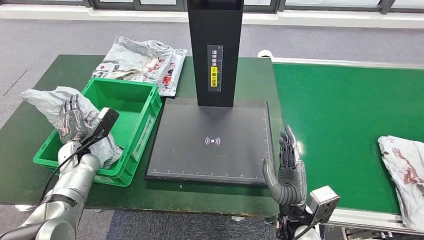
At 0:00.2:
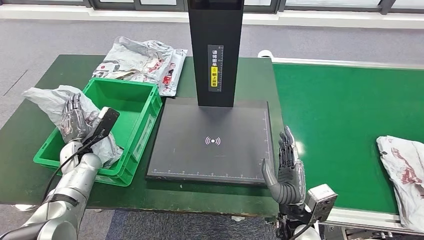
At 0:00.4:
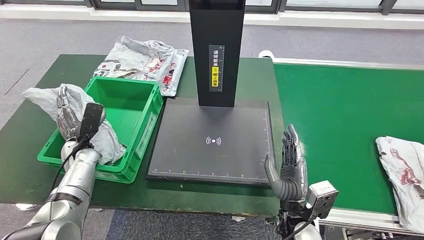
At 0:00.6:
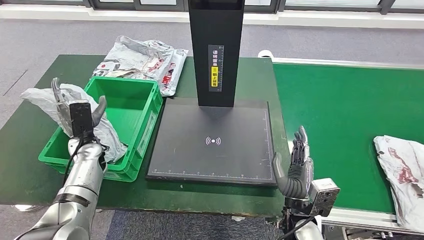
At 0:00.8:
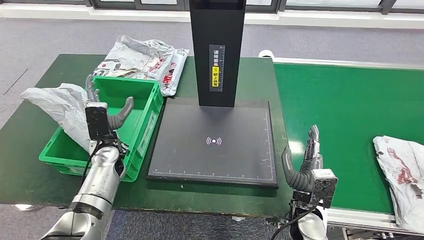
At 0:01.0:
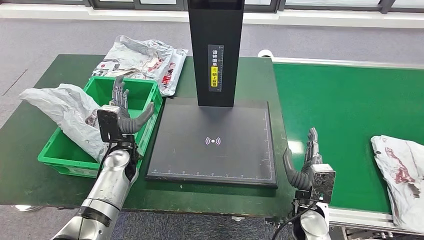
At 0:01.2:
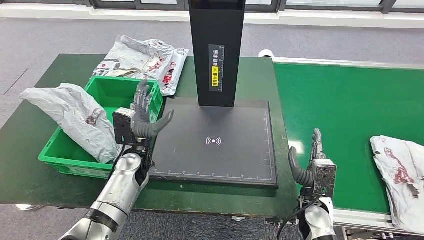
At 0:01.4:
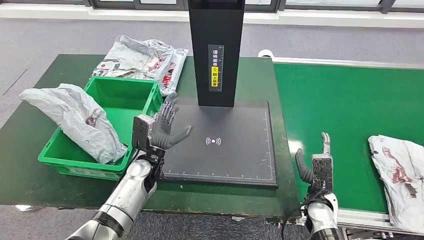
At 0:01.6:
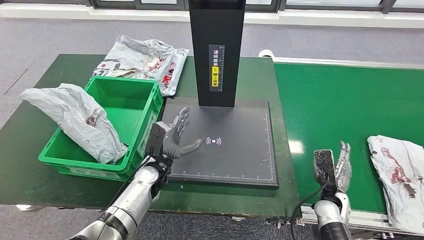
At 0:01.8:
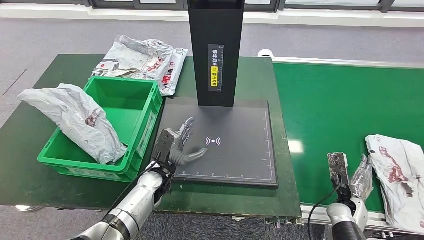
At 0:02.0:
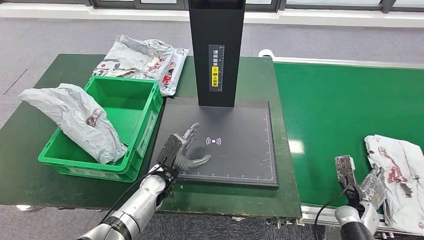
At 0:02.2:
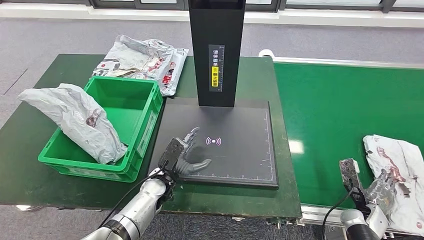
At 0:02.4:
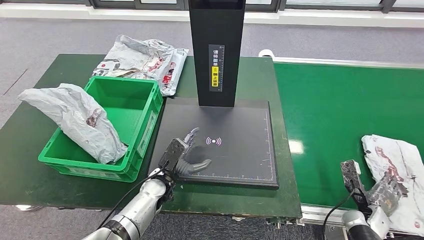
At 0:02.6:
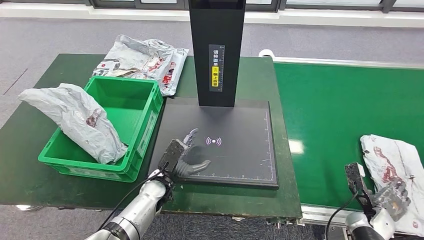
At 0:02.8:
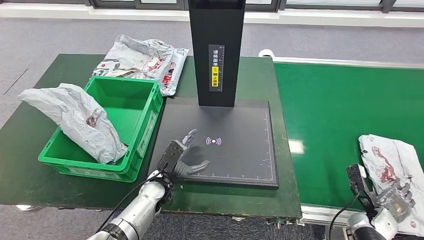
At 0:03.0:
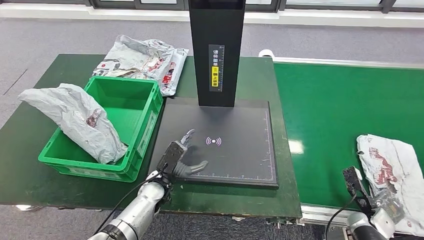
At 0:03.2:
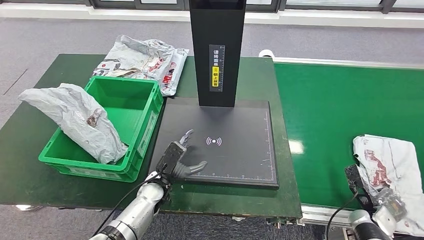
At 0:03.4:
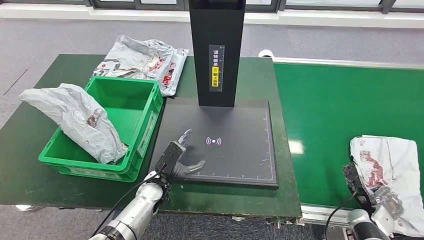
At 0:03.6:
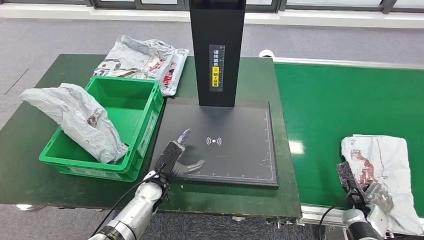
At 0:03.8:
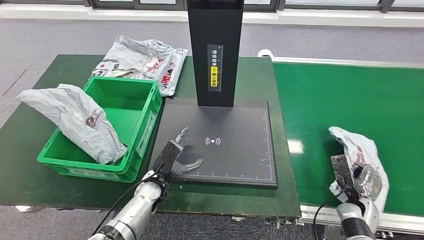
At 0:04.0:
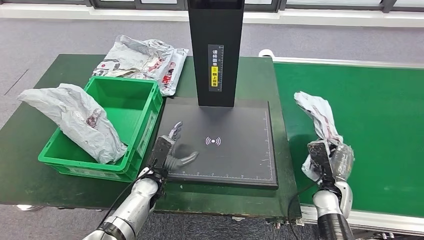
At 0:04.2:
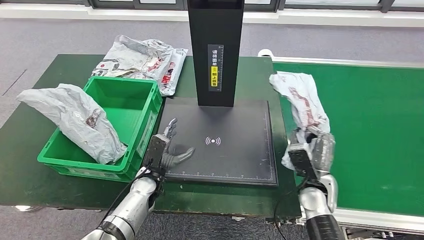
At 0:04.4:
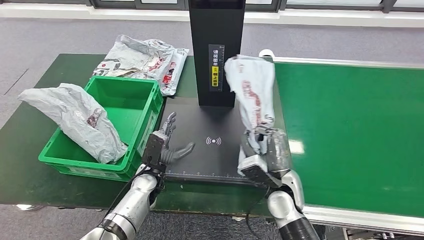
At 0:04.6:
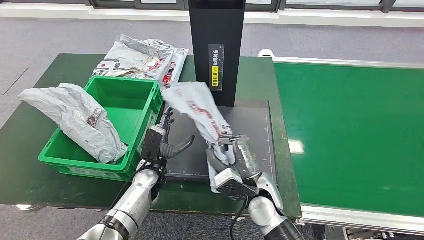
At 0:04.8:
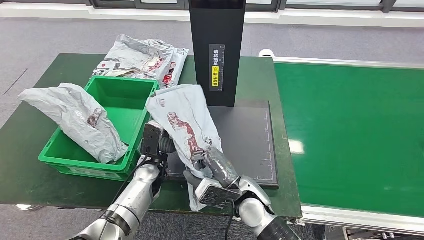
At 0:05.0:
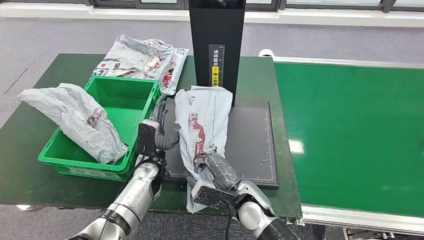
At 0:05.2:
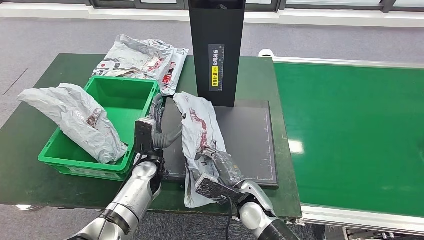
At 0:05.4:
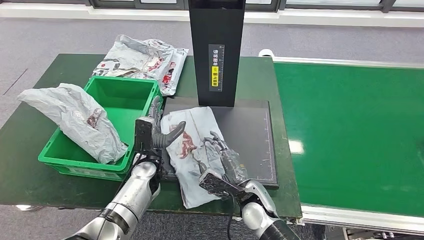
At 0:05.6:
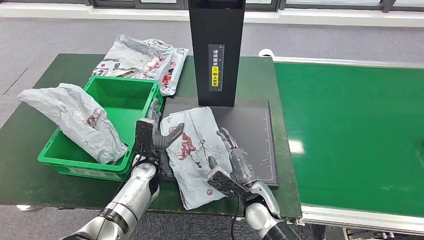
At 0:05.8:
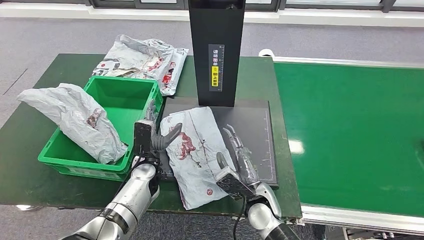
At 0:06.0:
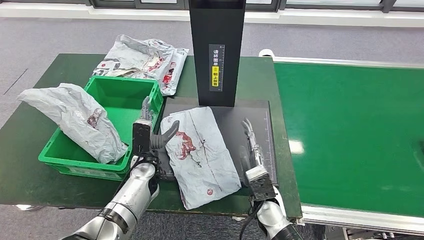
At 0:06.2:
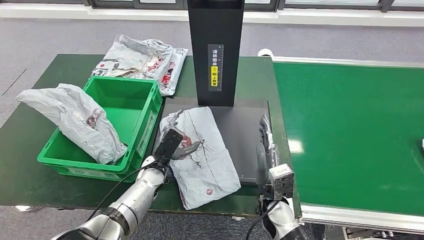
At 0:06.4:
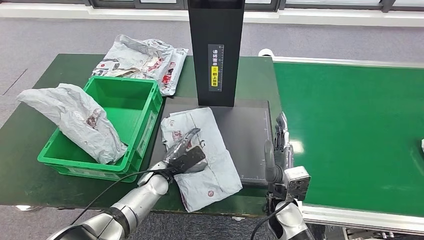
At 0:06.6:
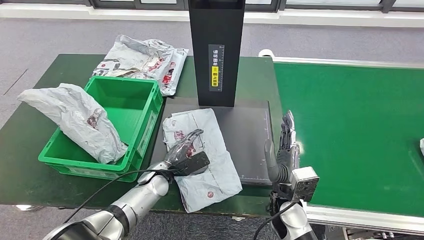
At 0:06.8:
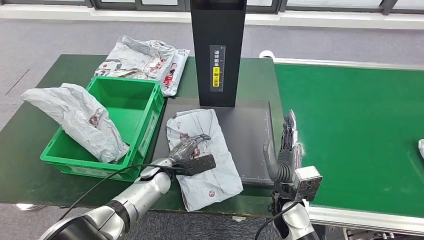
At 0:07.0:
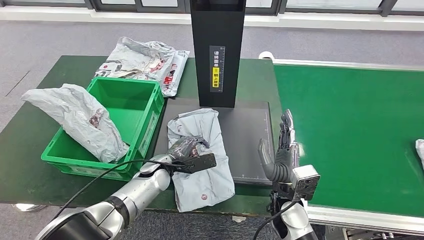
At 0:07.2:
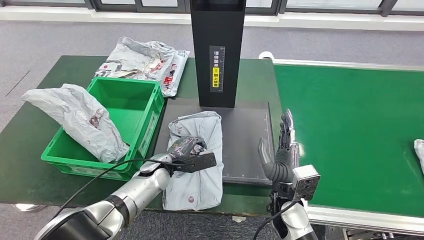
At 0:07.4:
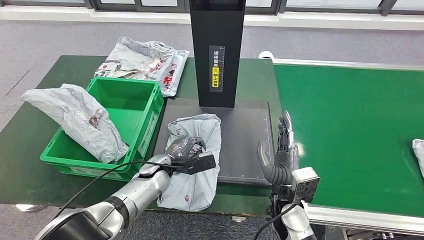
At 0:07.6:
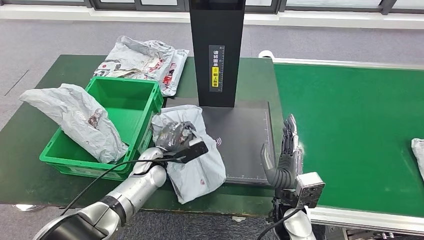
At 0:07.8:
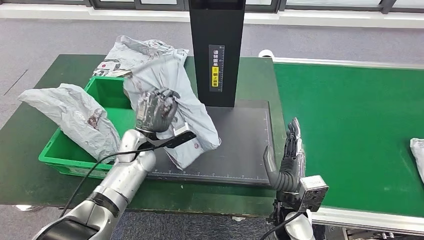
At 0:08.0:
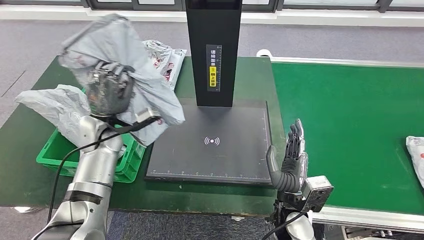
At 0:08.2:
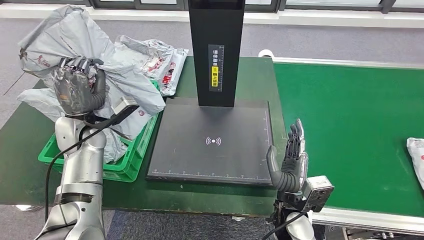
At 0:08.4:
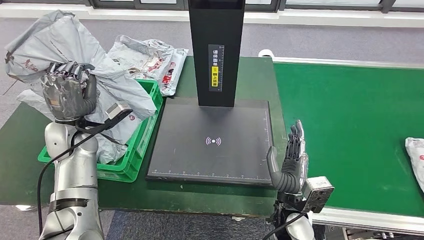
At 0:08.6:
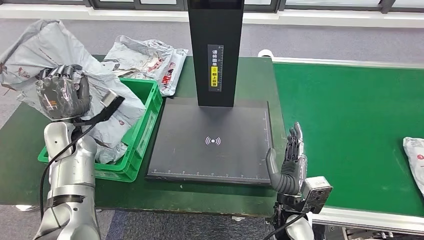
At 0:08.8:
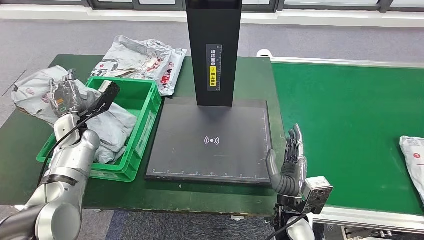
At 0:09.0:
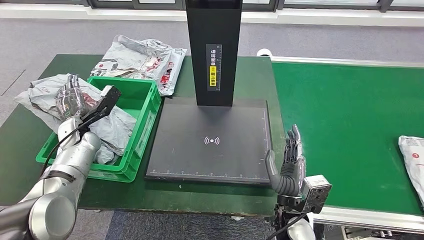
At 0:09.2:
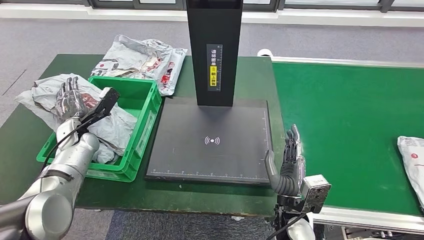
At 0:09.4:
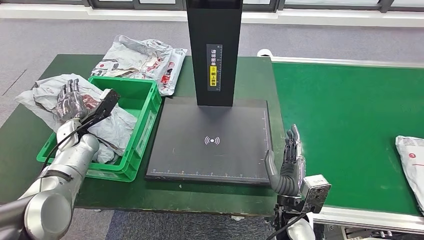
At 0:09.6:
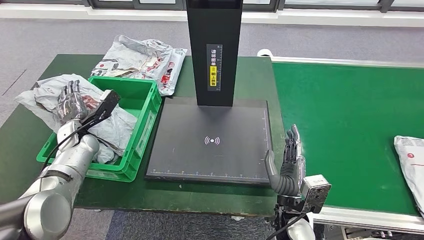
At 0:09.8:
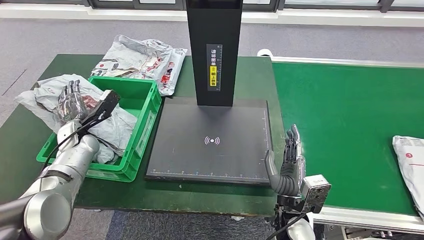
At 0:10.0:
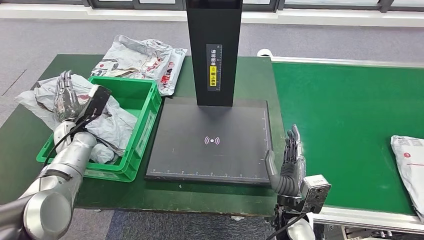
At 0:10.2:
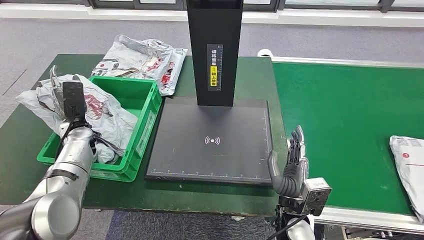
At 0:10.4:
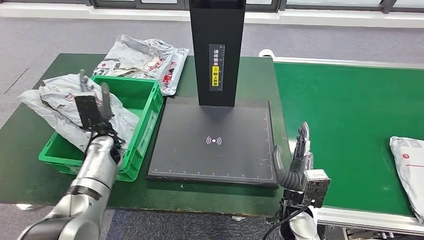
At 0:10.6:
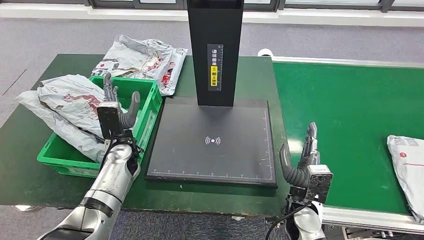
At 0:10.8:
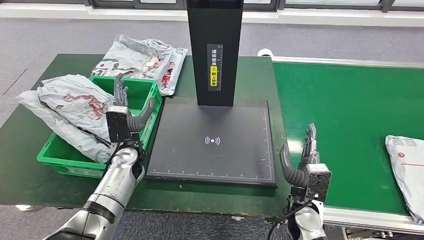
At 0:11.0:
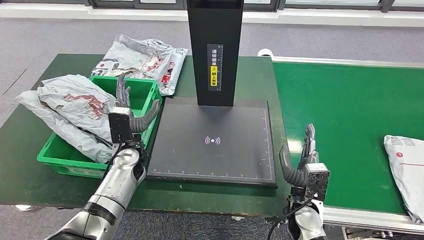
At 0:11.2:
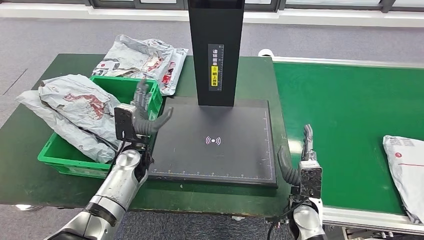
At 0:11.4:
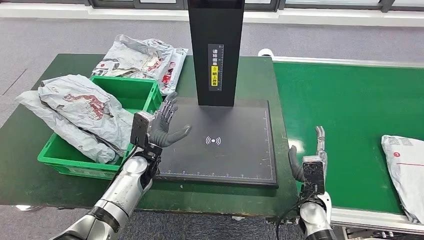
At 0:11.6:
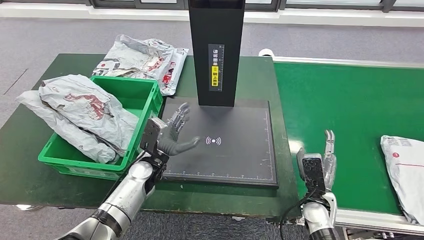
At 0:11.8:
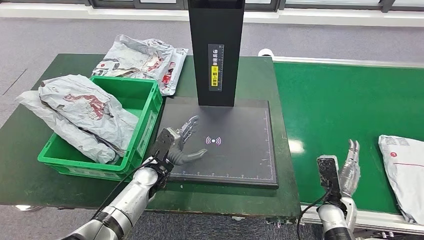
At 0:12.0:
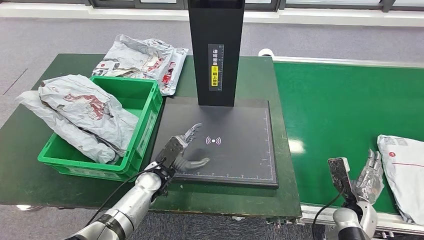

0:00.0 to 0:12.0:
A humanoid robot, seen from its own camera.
Step, 0:00.0 to 0:02.2: Put the parcel inside the courier box.
Step, 0:02.4 to 0:05.0: Pick up the parcel from the conveyor belt.
Step, 0:05.2 to 0:06.8: Place the parcel onto the inbound machine.
Step, 0:07.0 to 0:08.4: Pick up the parcel from the inbound machine.
Step, 0:08.8 to 0:09.8: Place the parcel into the delivery box.
0:01.6 to 0:03.0: The left hand moves approximately 5 cm. The right hand travels to the right by about 10 cm.
0:04.4 to 0:06.0: The right hand changes place by approximately 5 cm.

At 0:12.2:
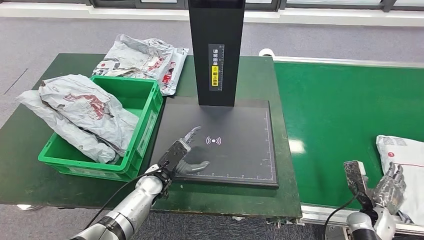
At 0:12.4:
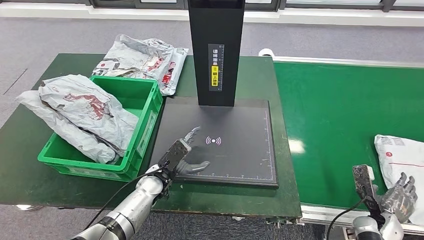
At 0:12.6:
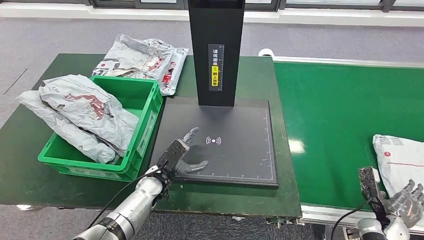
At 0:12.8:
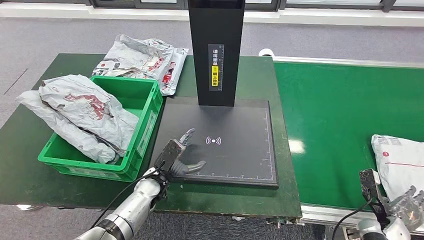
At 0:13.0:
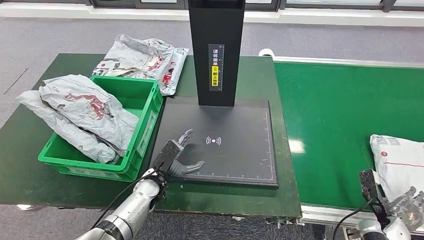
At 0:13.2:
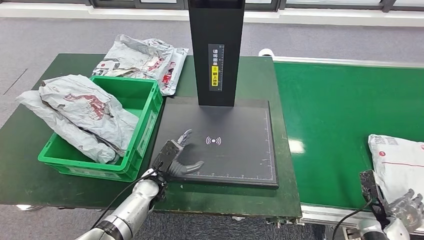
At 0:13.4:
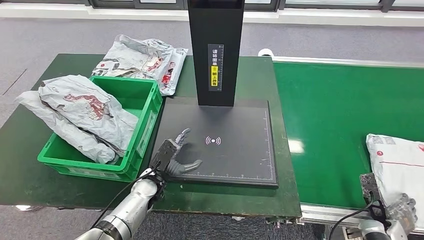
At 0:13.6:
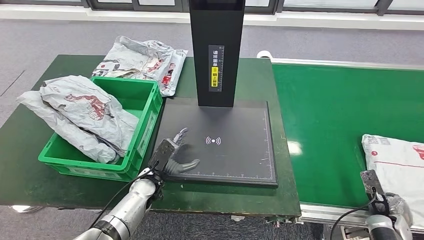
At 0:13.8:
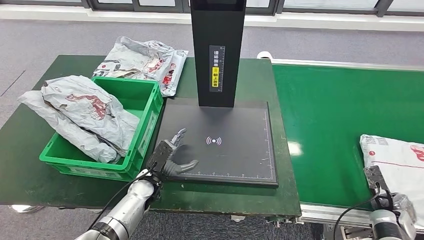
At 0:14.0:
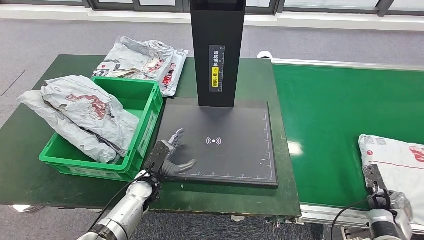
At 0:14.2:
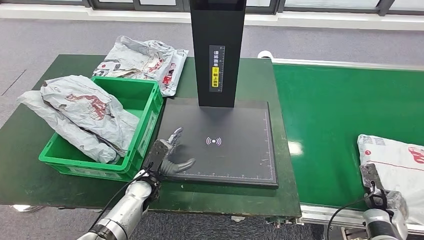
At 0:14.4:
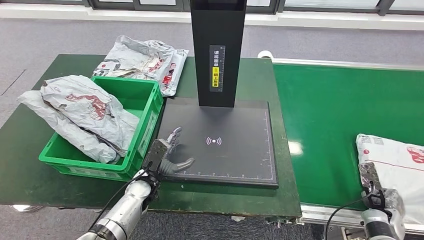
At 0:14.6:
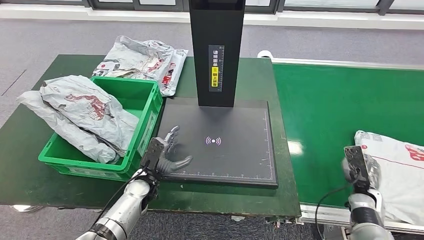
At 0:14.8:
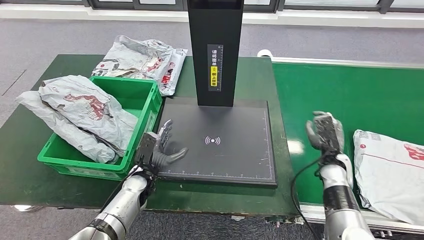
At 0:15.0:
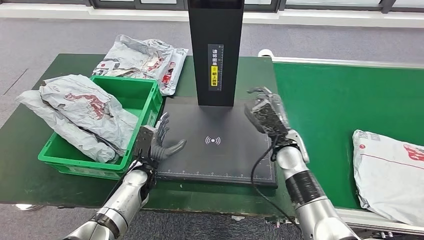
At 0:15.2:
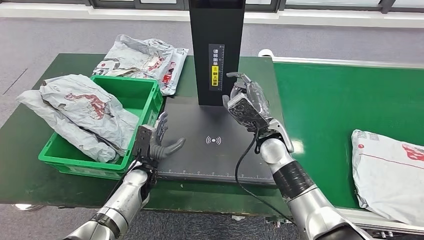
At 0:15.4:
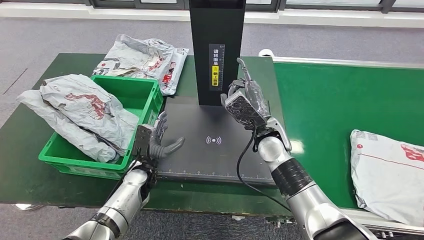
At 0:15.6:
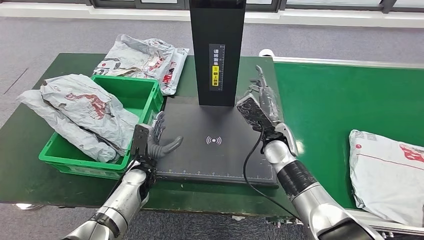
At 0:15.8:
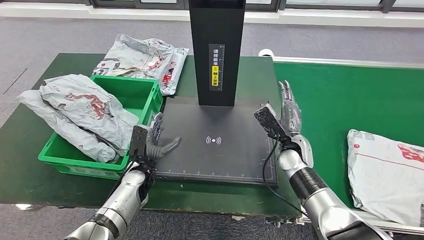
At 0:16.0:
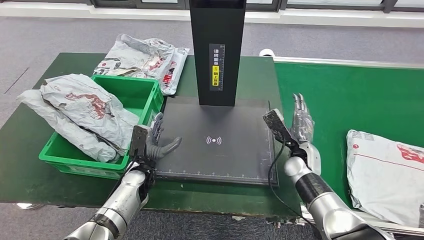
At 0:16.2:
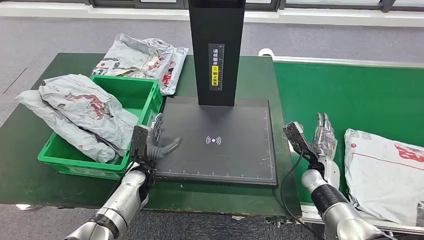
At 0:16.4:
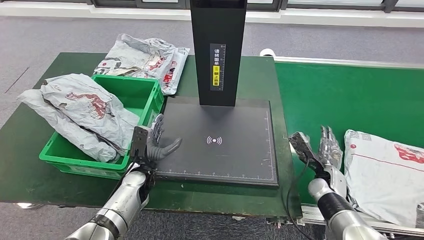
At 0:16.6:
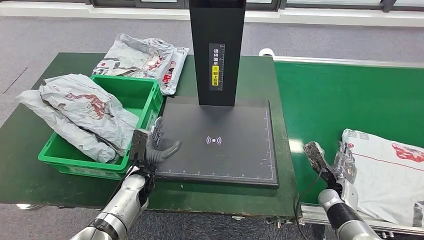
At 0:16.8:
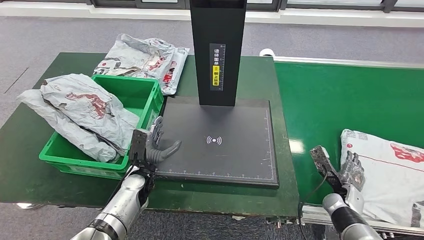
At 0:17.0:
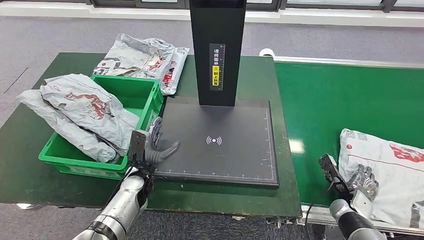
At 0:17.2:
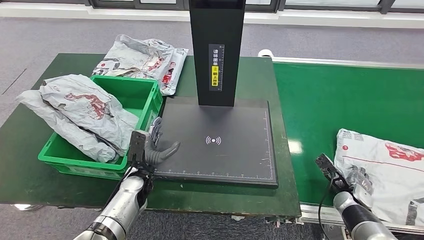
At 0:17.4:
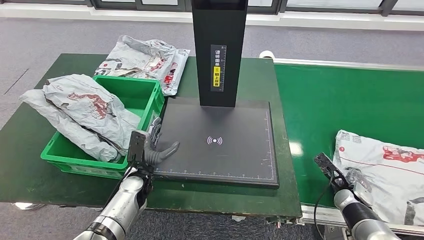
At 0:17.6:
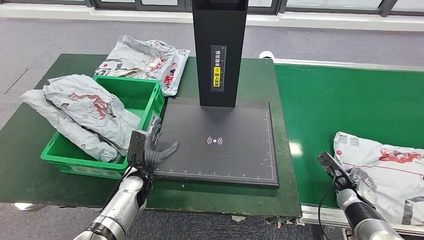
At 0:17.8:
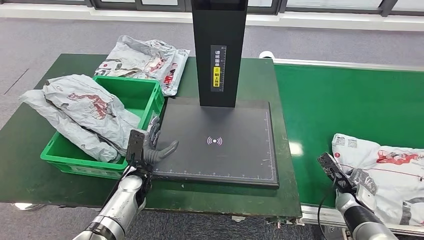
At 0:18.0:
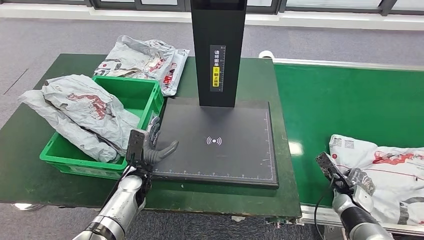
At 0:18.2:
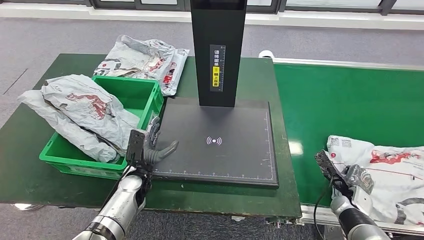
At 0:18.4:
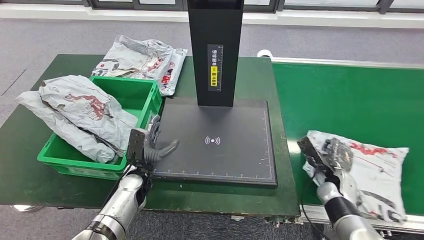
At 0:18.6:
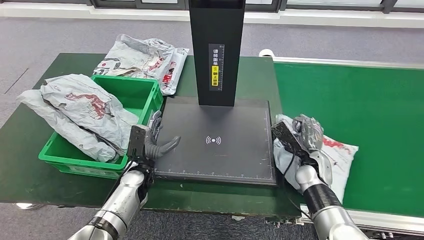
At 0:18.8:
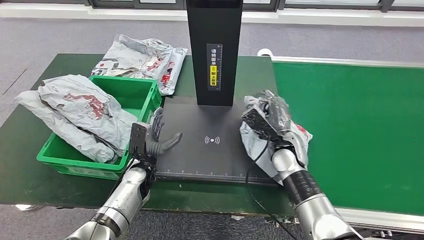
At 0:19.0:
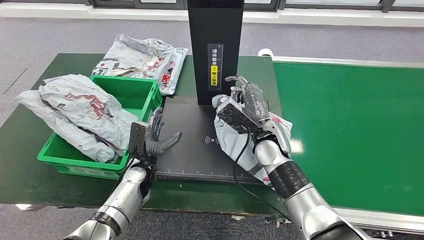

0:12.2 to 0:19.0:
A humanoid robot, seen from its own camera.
0:15.0 to 0:16.2: The right hand heads to the right and downward, covering some 15 cm.
